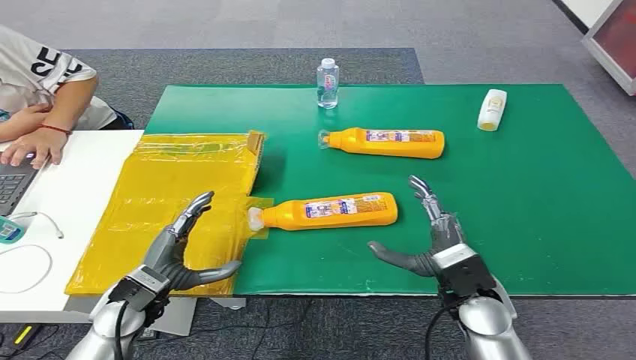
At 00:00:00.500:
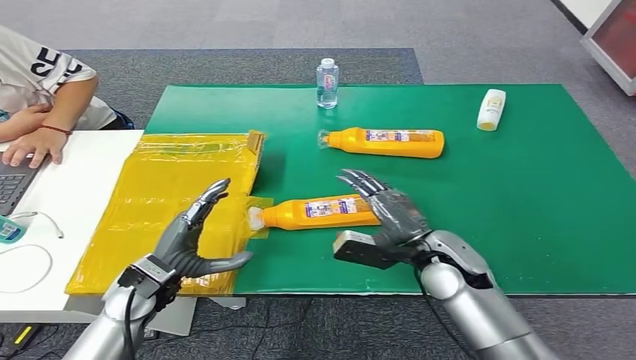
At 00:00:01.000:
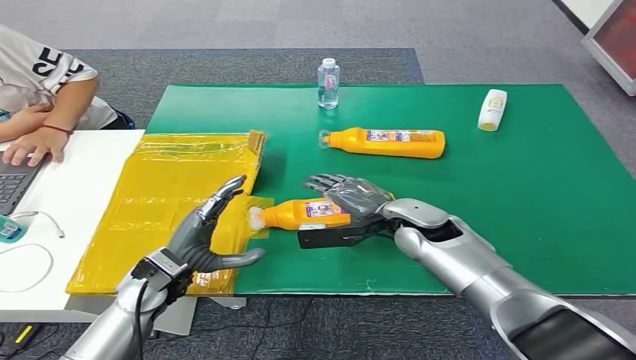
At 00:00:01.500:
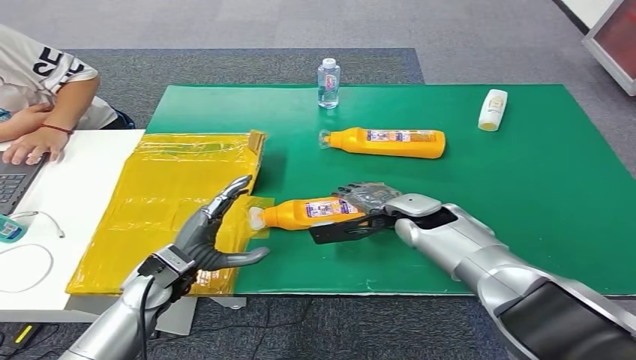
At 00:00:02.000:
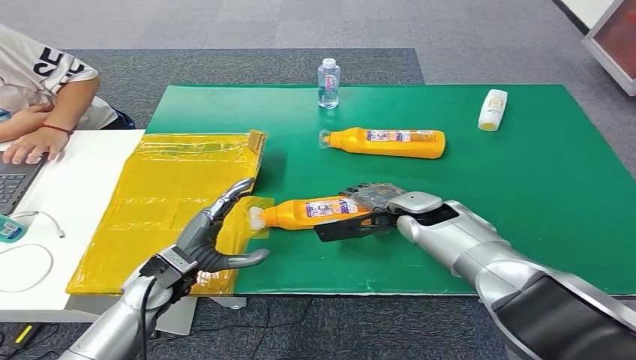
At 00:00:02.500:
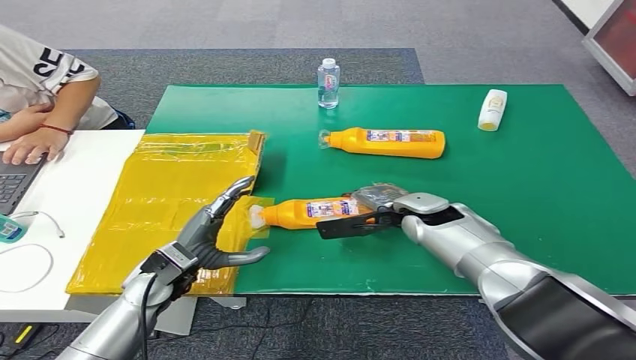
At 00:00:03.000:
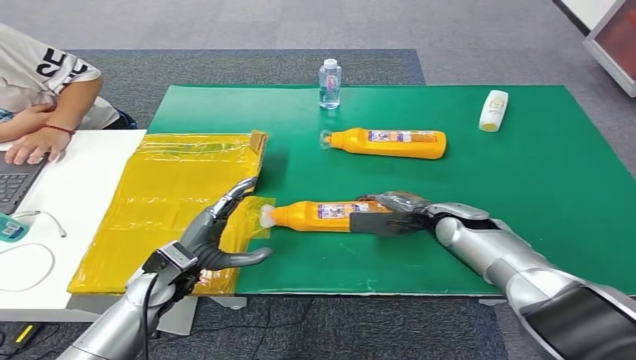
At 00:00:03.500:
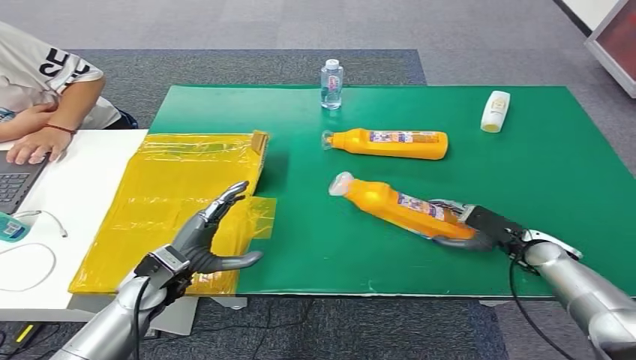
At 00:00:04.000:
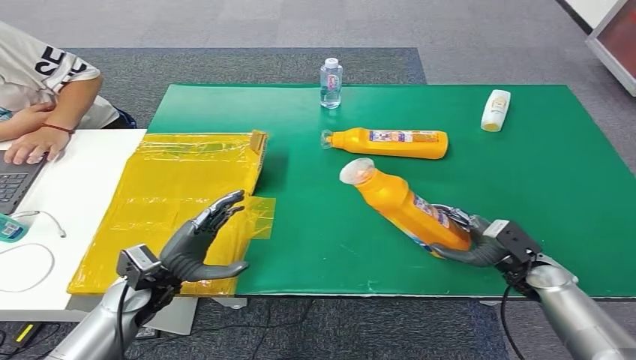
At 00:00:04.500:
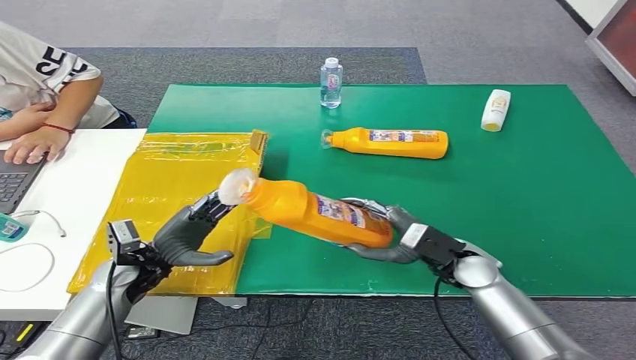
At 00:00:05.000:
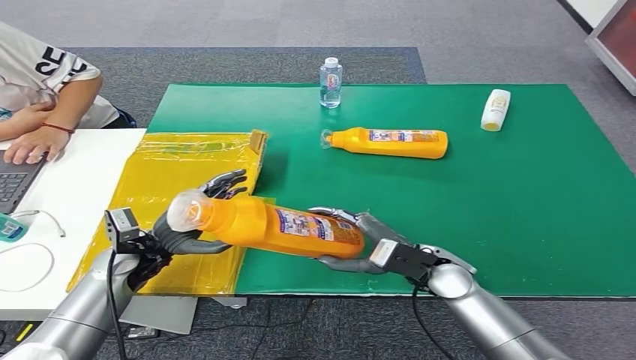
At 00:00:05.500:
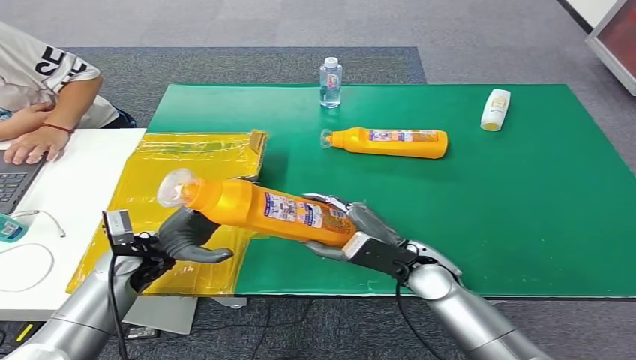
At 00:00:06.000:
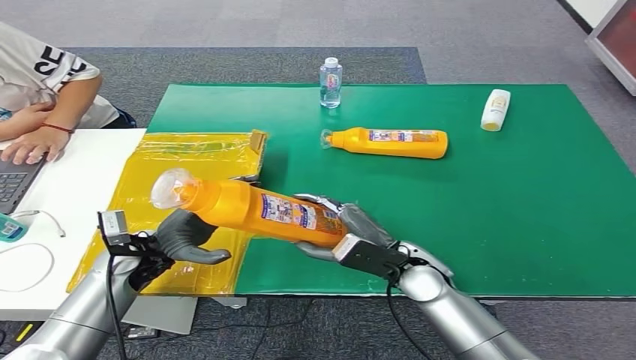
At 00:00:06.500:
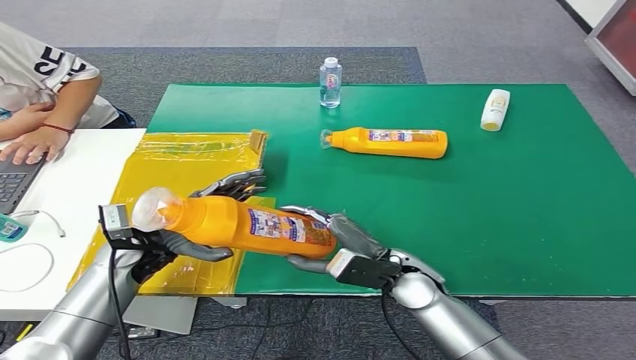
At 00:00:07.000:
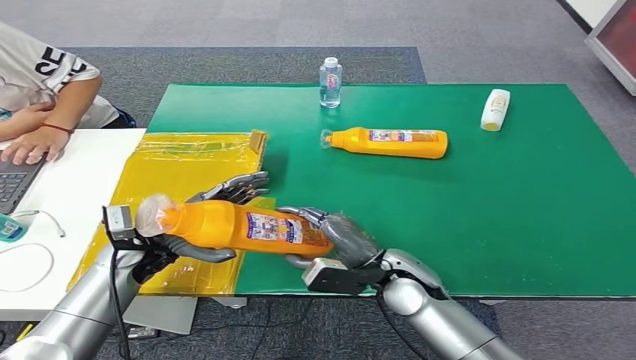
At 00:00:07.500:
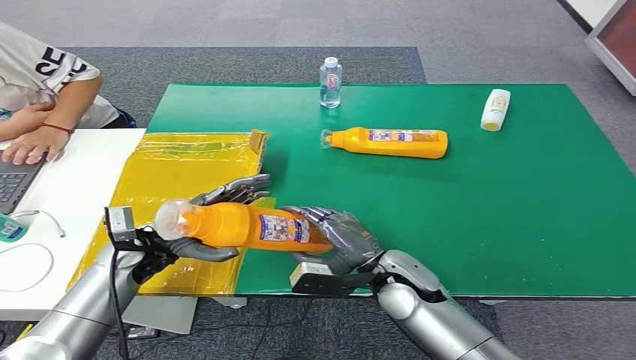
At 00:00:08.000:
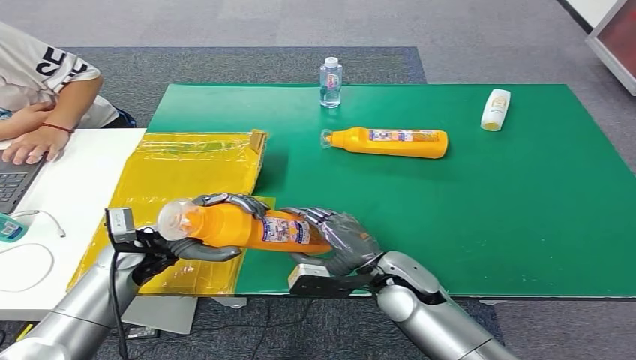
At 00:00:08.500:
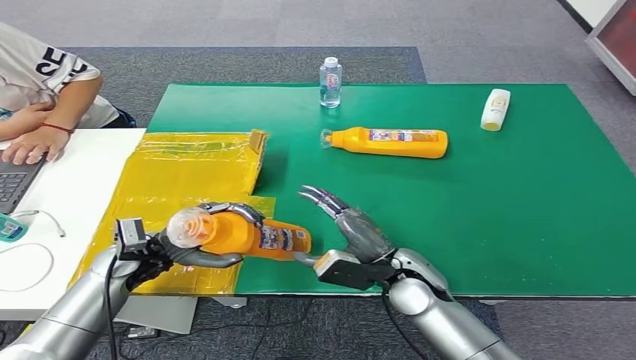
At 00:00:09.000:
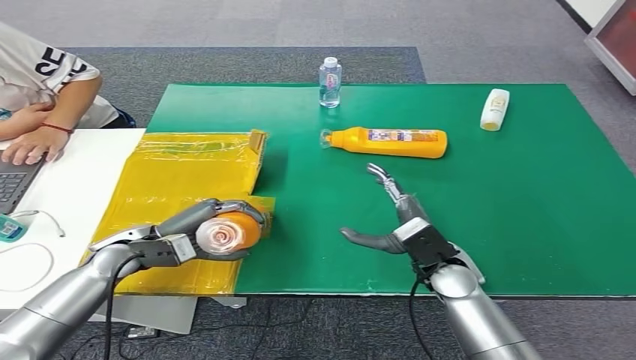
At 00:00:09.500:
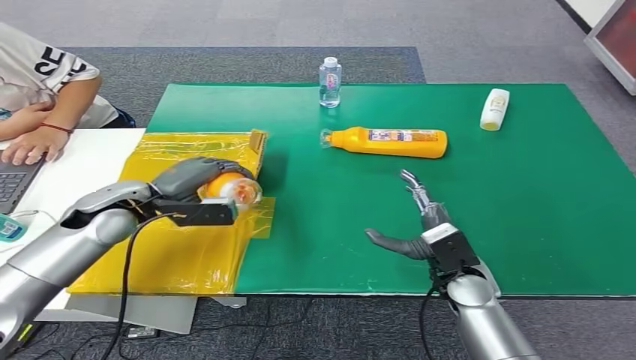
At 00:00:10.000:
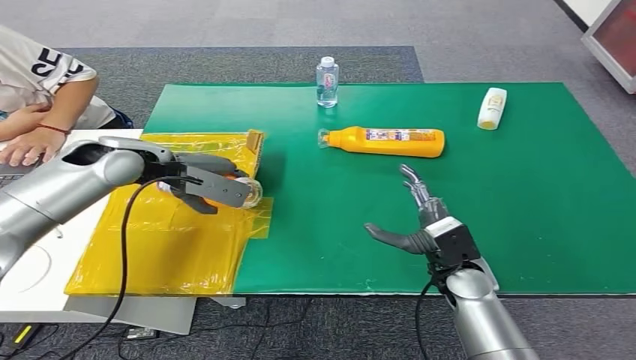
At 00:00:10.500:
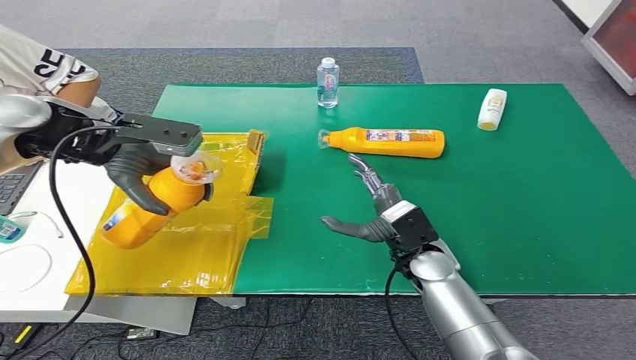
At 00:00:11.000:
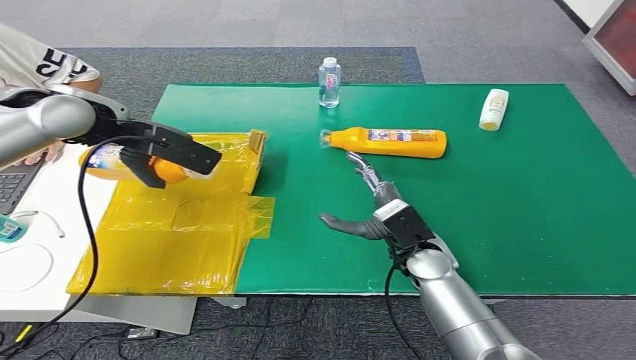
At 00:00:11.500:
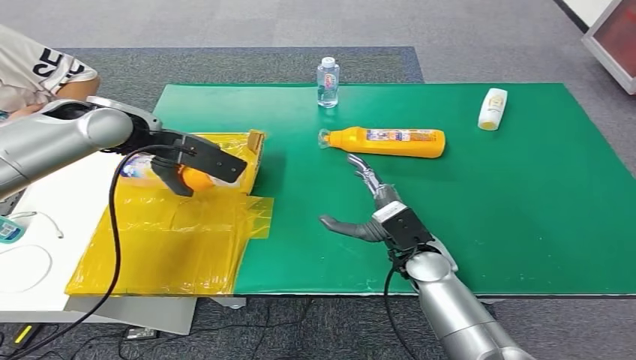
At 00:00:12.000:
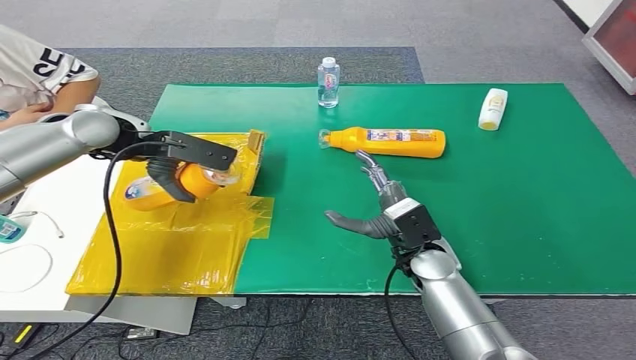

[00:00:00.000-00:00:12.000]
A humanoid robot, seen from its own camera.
Step, 00:00:00.000 to 00:00:03.500: Pick up the bottle from the table.
00:00:02.000 to 00:00:04.000: The right hand travels to the right, downward and backward by approximately 25 cm.
00:00:04.000 to 00:00:06.000: The left hand changes place by some 5 cm. Meanwhile the right hand moves to the left, about 20 cm.
00:00:10.000 to 00:00:12.000: The right hand is displaced to the left by about 5 cm.

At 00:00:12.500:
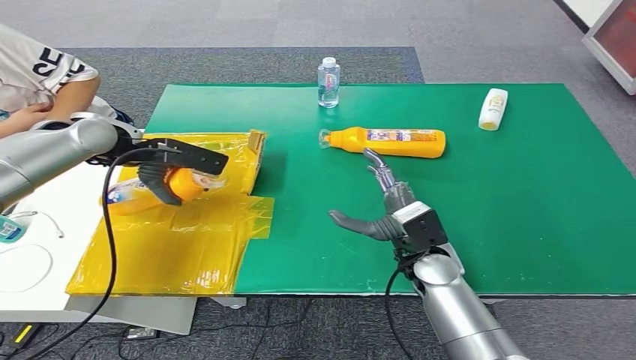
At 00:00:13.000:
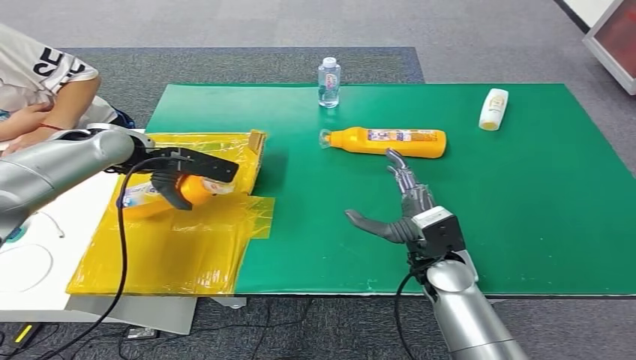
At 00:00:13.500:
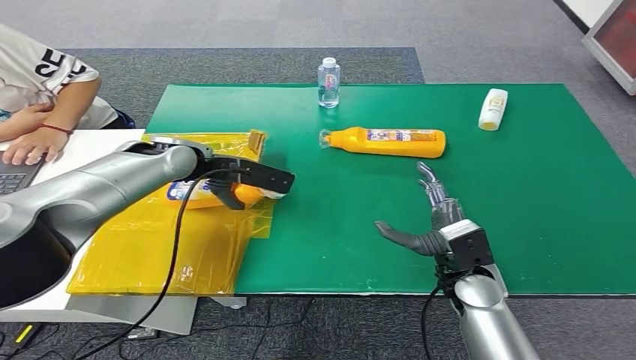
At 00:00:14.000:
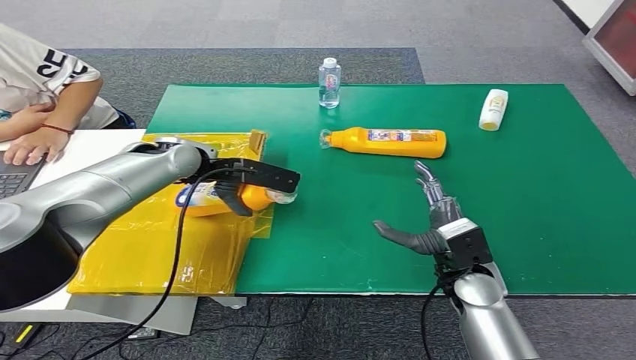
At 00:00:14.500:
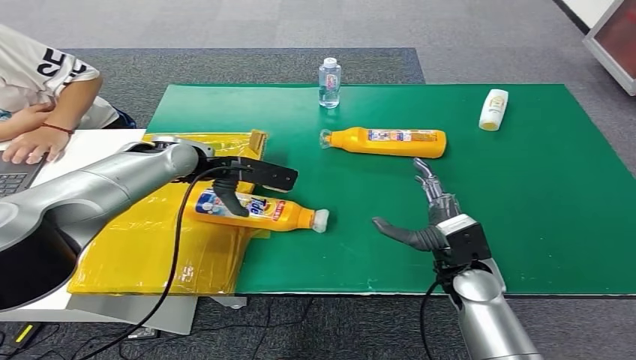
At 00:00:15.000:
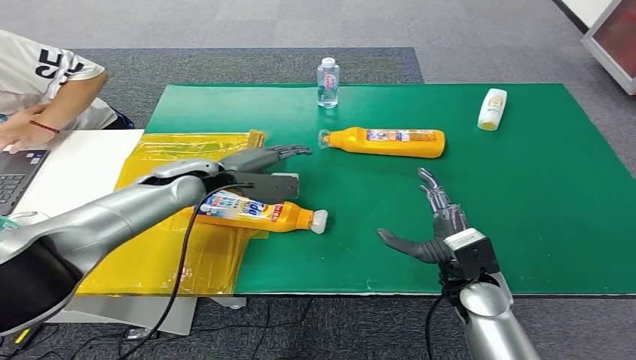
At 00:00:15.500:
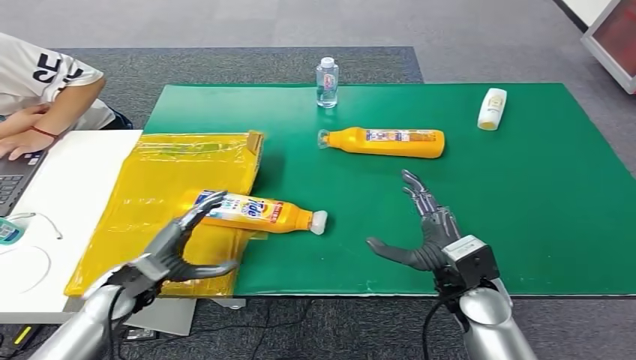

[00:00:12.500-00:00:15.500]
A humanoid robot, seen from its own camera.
Step, 00:00:12.500 to 00:00:15.500: Turn the bottle to the front side.
